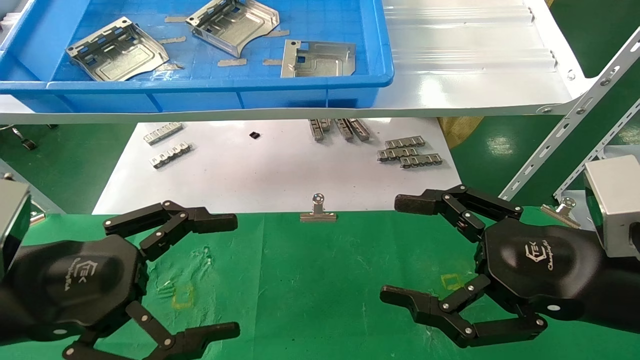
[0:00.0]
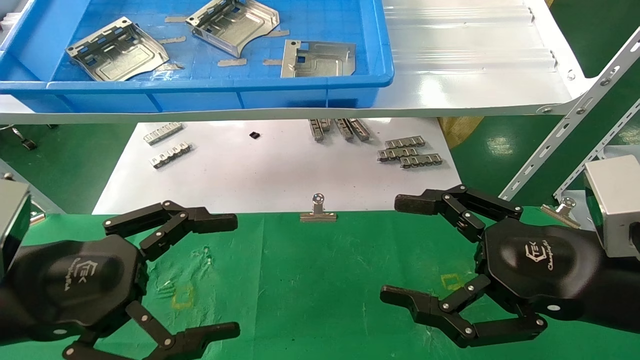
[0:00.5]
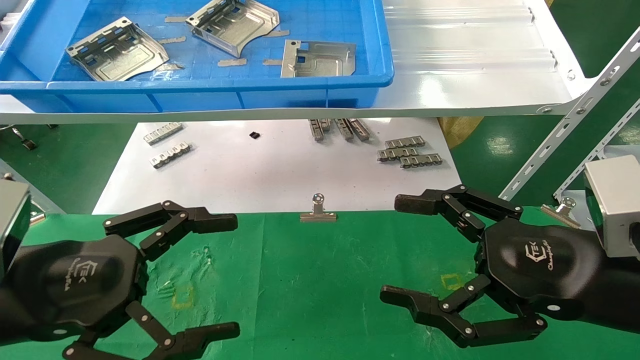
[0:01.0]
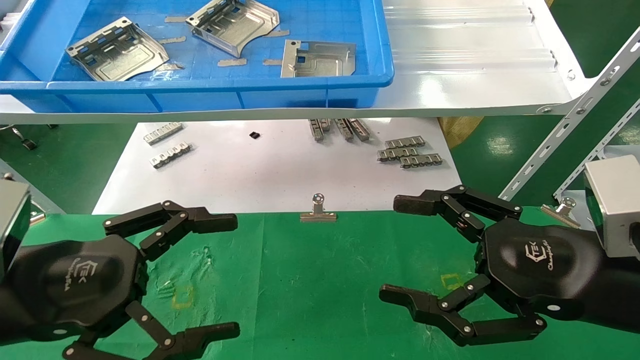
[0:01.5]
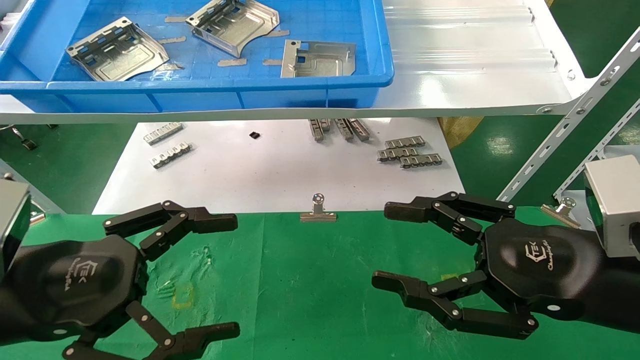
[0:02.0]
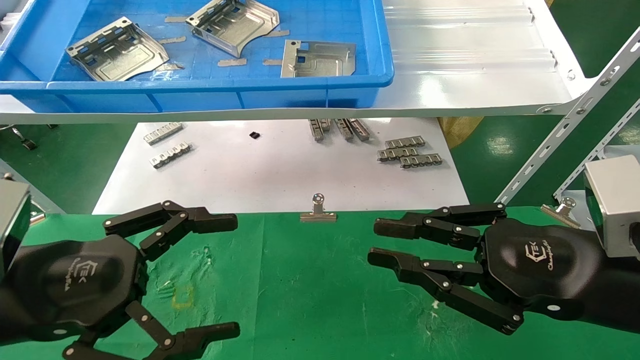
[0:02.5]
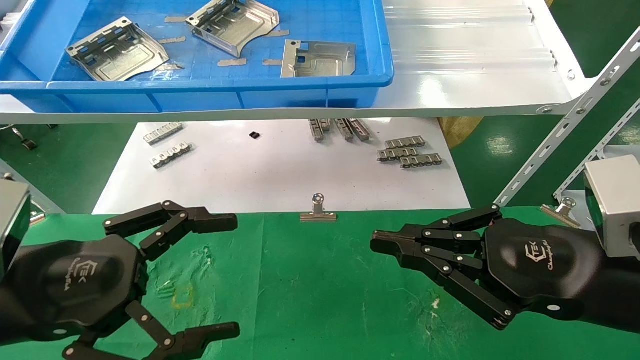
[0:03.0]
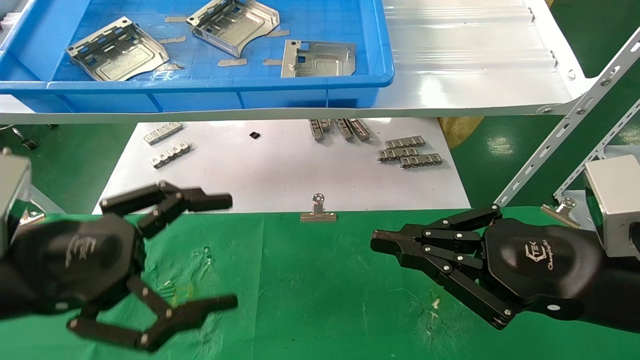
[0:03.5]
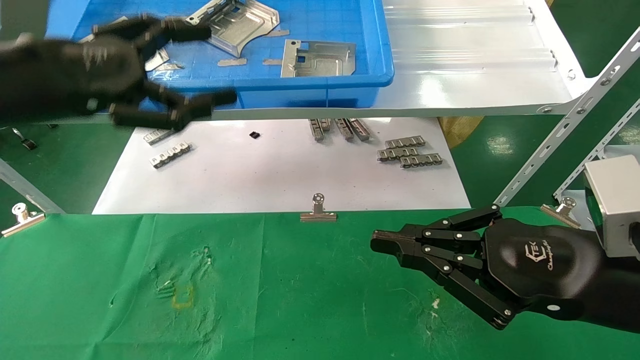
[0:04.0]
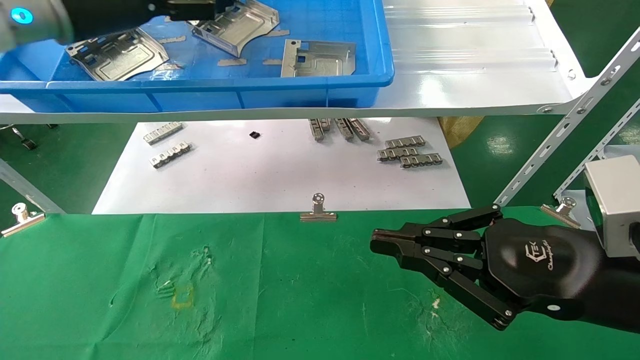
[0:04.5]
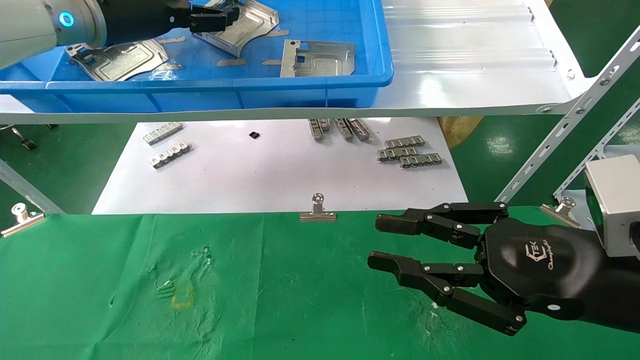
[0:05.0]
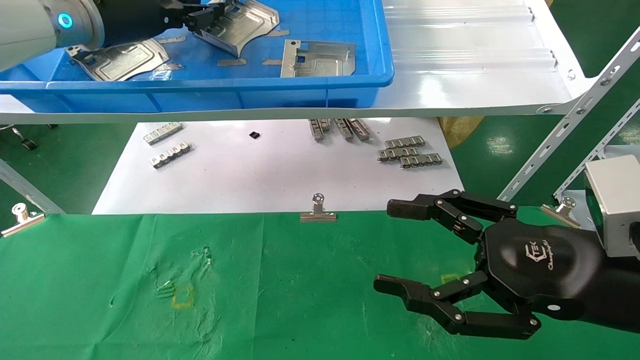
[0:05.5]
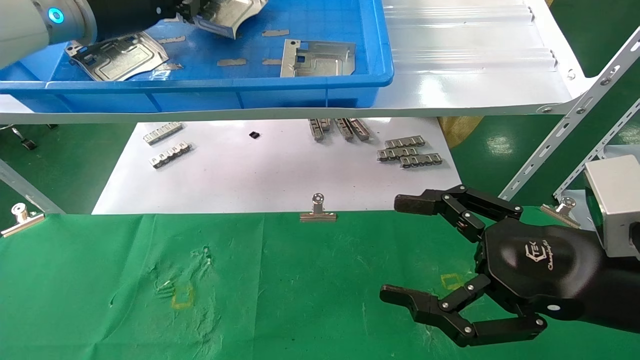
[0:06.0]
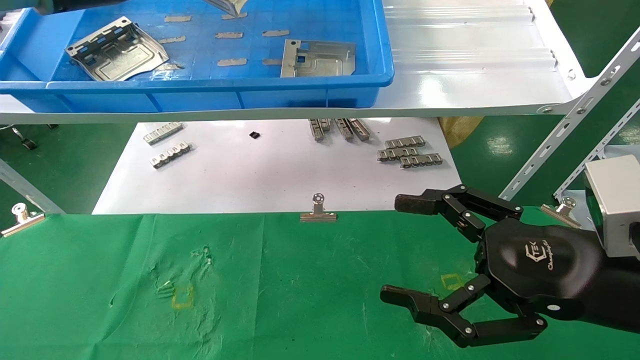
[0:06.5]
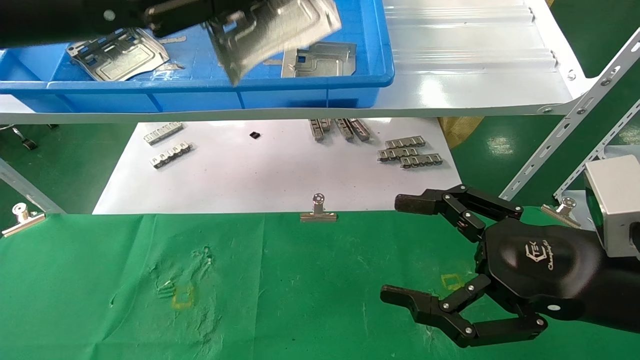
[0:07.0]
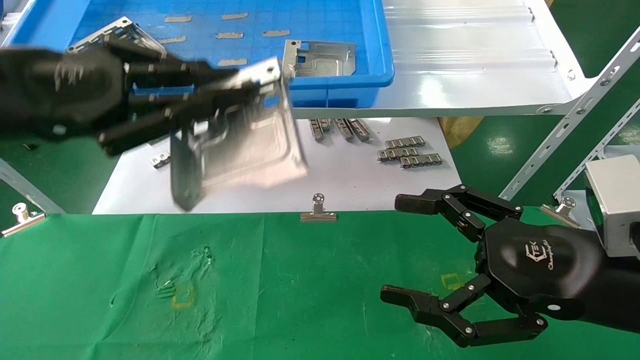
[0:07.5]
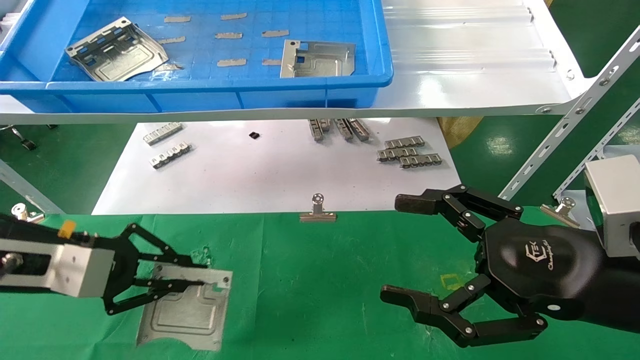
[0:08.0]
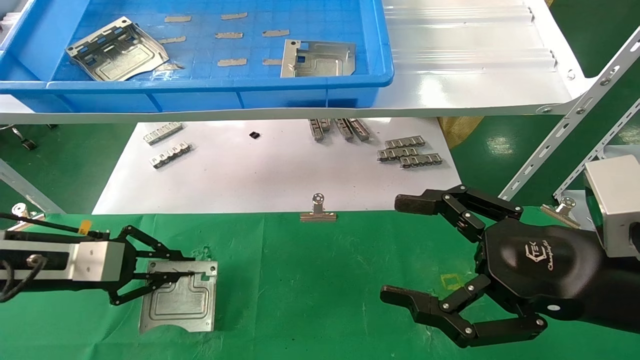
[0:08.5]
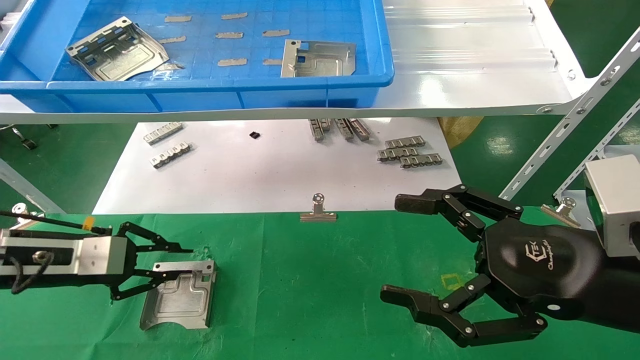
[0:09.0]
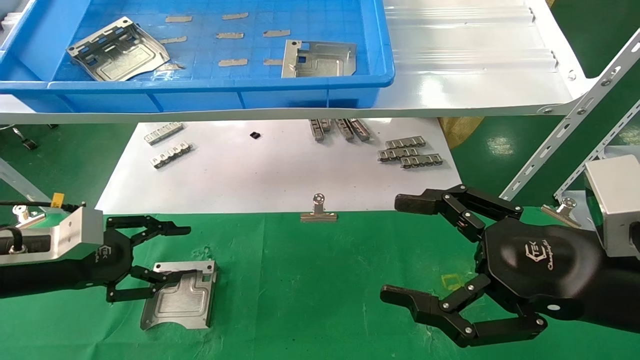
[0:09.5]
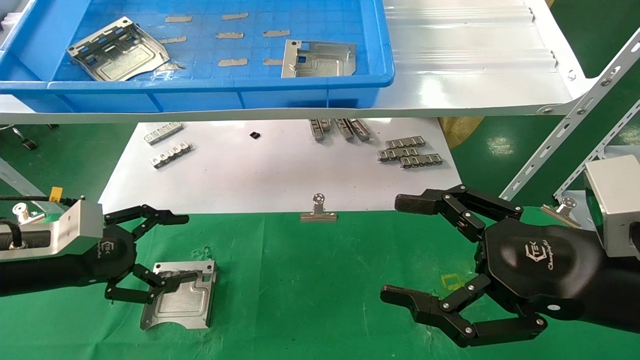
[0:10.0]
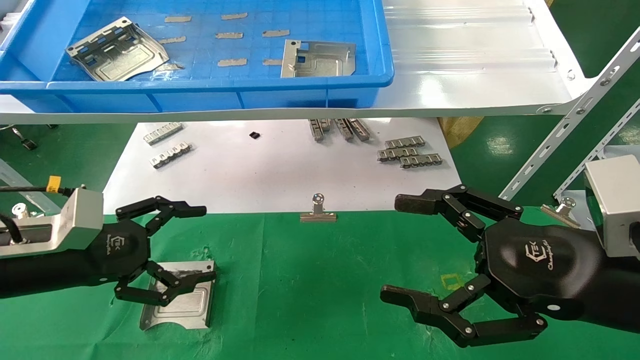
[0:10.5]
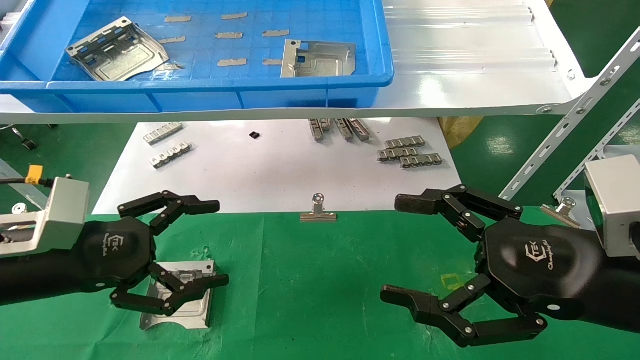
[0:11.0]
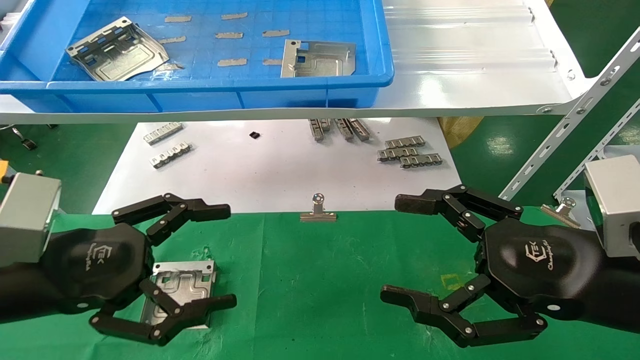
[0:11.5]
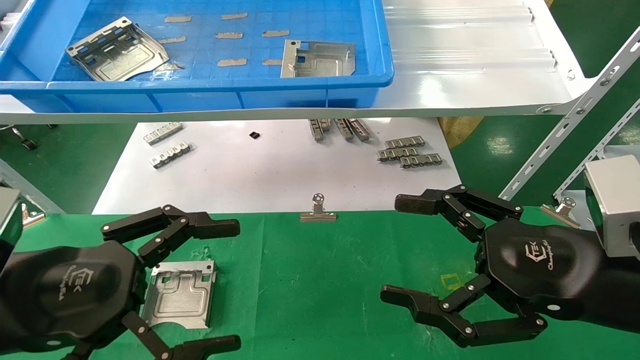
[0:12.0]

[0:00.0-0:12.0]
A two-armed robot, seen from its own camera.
Task of the whole recording: use the mechanical arm to pick up the parts and place them on the table.
Step, 0:04.0 to 0:05.5: Pick up the hard drive bracket from the feeding area.
Step, 0:06.0 to 0:09.0: Place the hard drive bracket into the box.
0:00.0 to 0:02.0: Neither gripper changes place.
0:02.0 to 0:04.0: The left gripper travels upward and forward by some 20 cm, while the right gripper closes.
0:04.0 to 0:06.0: The right gripper opens. The left gripper heads forward and upward, covering about 15 cm, and closes up.
0:06.0 to 0:08.0: The left gripper moves downward and backward, about 25 cm.
0:08.0 to 0:10.0: The left gripper ends up approximately 5 cm from where it was, and opens up.
0:10.0 to 0:12.0: The left gripper is displaced backward and to the right by approximately 15 cm.

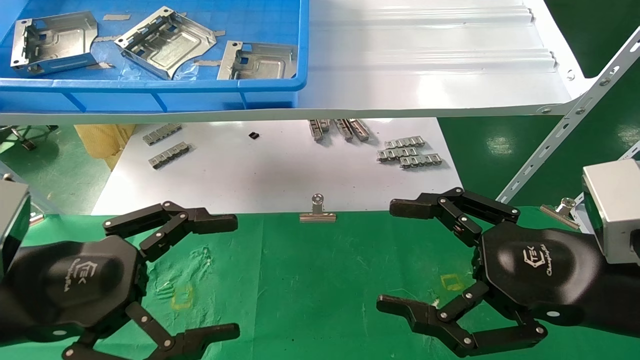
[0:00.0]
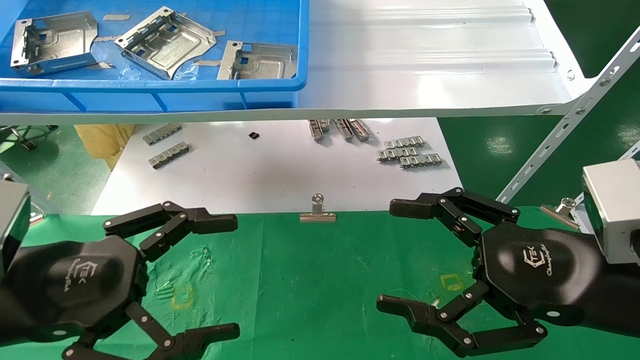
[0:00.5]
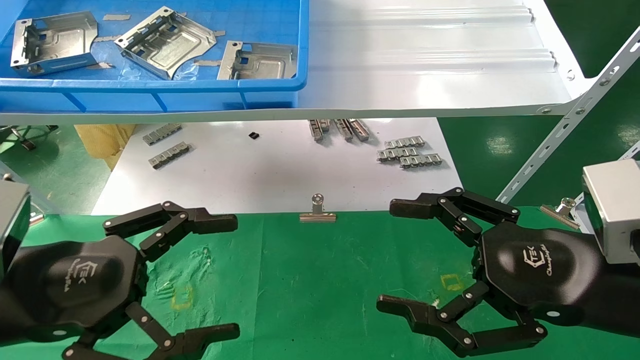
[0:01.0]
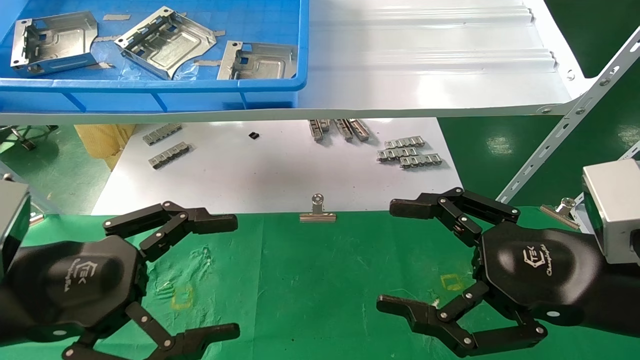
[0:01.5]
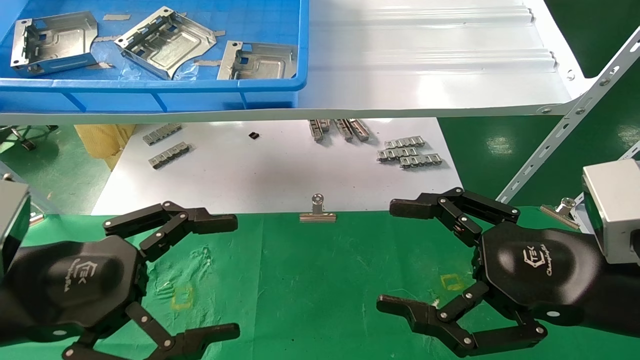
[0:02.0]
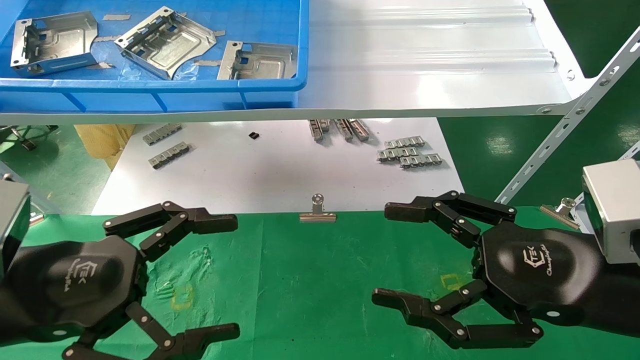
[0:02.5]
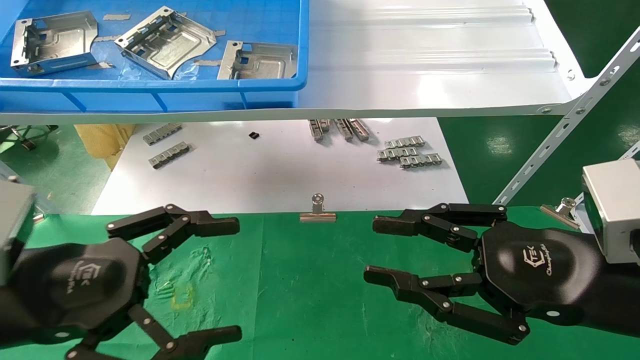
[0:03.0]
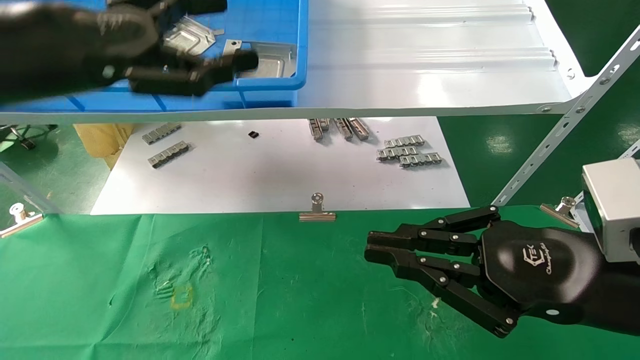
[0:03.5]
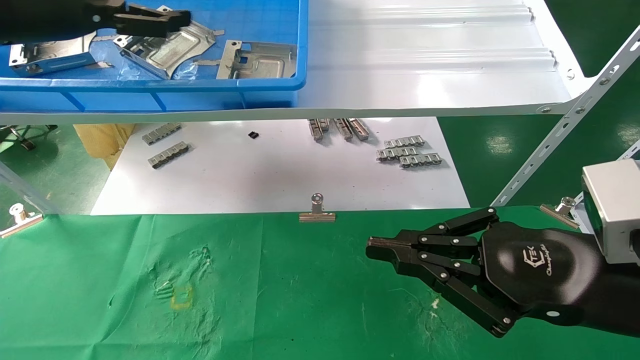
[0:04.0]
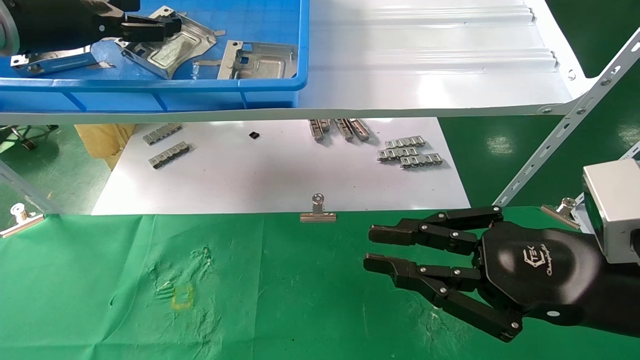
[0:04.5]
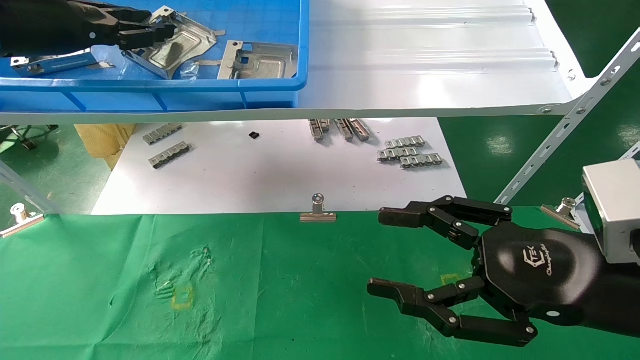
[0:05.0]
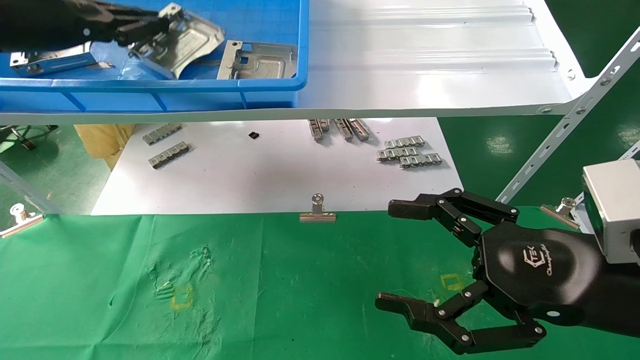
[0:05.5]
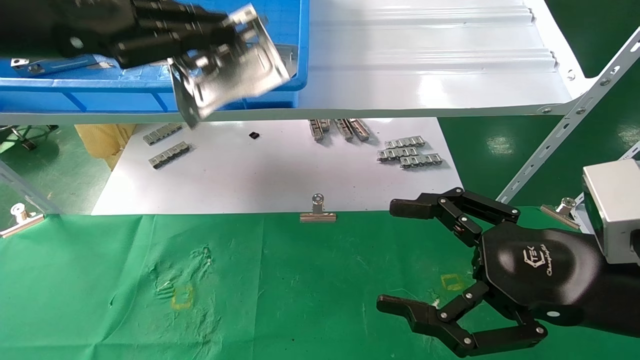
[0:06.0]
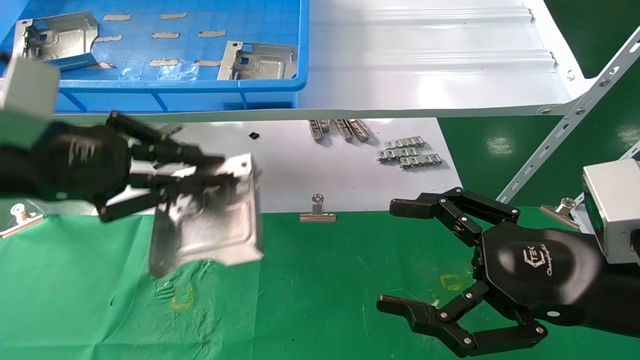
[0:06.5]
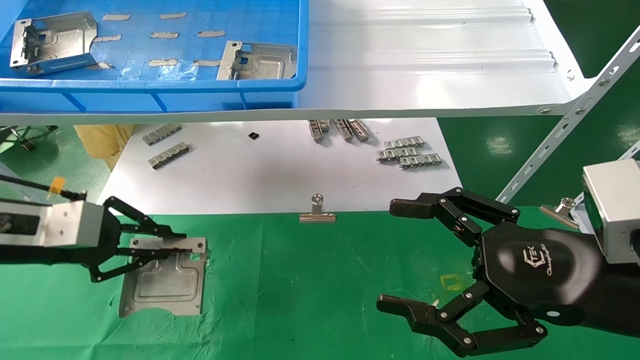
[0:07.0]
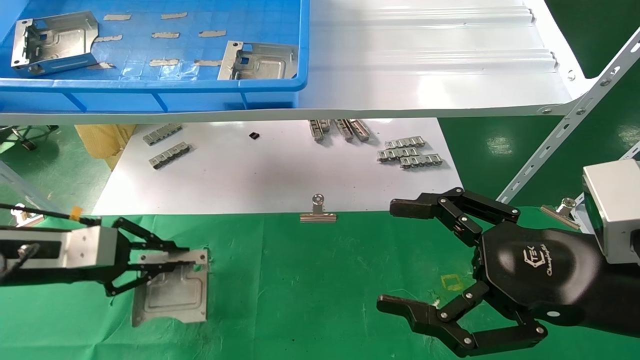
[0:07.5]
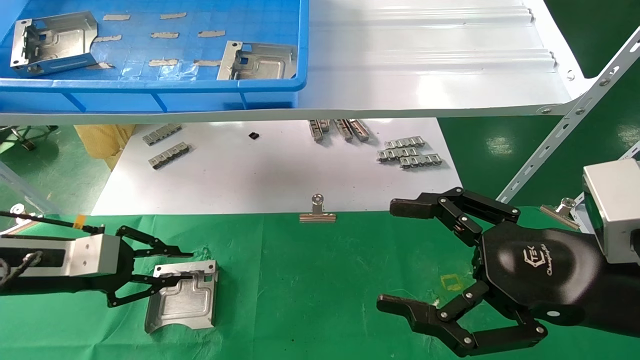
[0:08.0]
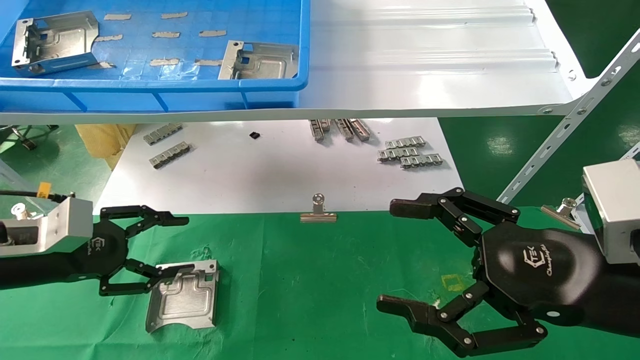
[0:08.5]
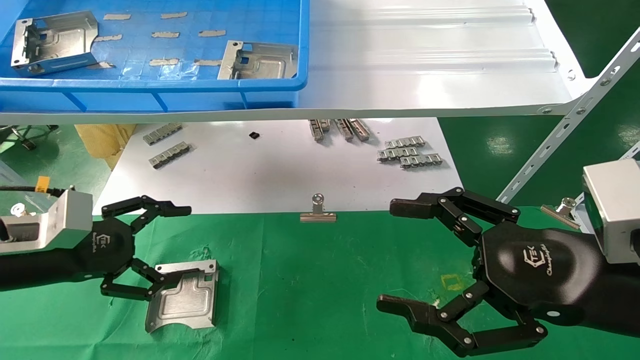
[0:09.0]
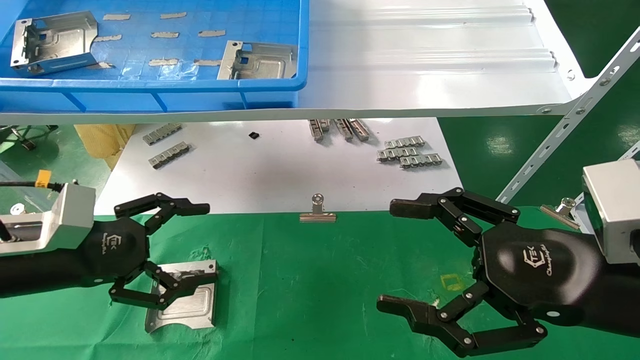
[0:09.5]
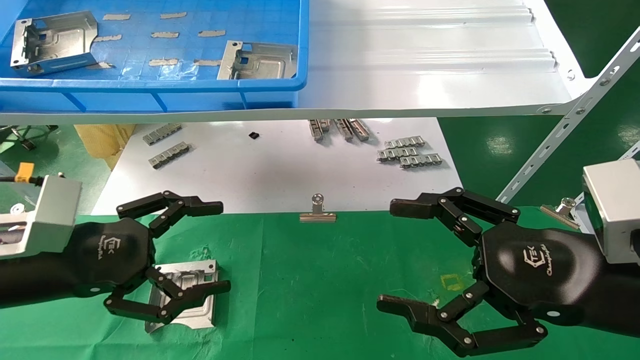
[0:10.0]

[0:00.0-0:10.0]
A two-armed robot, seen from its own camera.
Task of the whole recording: use the mechanical arm to pick up the parts and place them on the table.
Step, 0:03.5 to 0:05.5: Pick up the hard drive bracket from the feeding area.
Step, 0:06.0 to 0:08.0: Place the hard drive bracket into the box.
0:00.0 to 0:02.0: Both grippers stay put.
0:02.0 to 0:04.0: The left gripper goes roughly 30 cm upward and forward; the right gripper closes its fingers.
0:04.0 to 0:06.0: The right gripper opens up, while the left gripper shifts approximately 10 cm backward, and closes up.
0:06.0 to 0:08.0: The left gripper goes approximately 25 cm downward.
0:08.0 to 0:10.0: The left gripper heads backward and to the right, covering approximately 10 cm, and opens.
